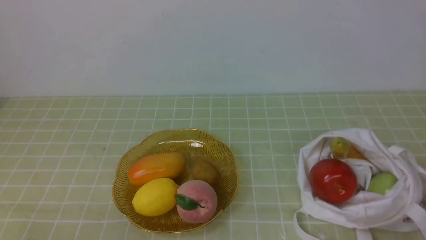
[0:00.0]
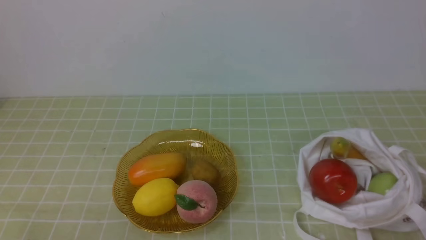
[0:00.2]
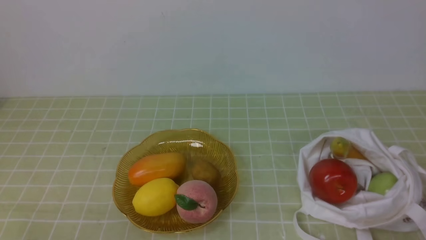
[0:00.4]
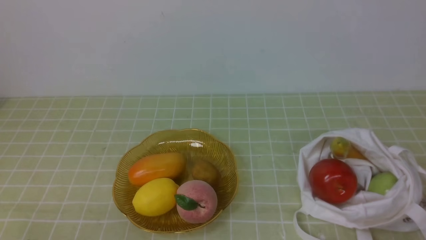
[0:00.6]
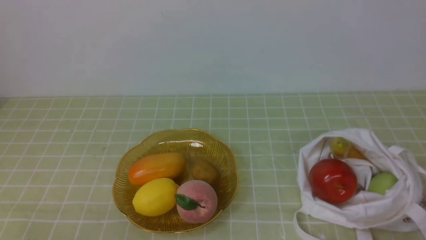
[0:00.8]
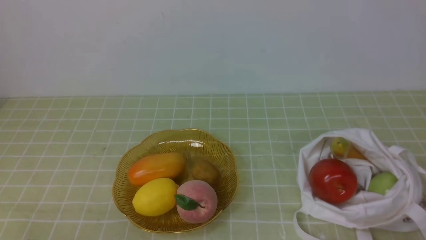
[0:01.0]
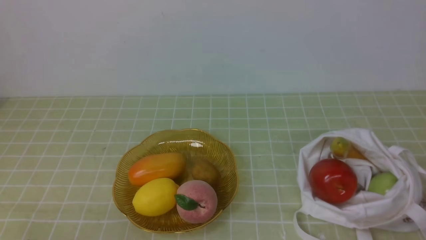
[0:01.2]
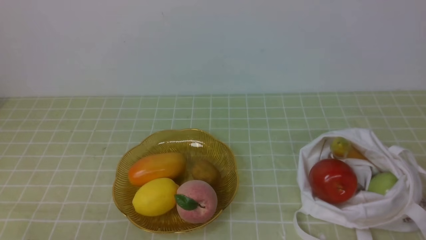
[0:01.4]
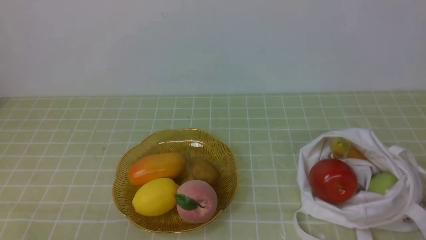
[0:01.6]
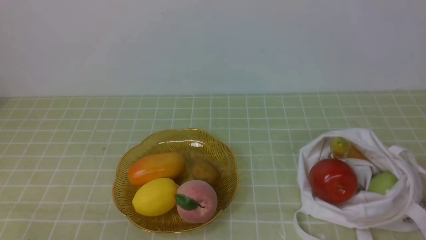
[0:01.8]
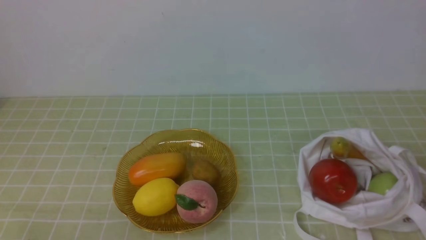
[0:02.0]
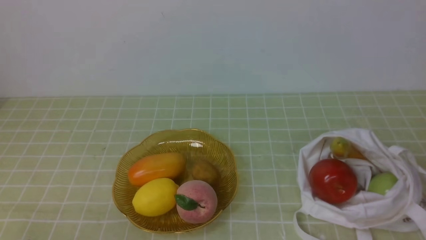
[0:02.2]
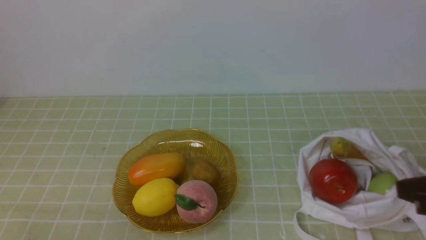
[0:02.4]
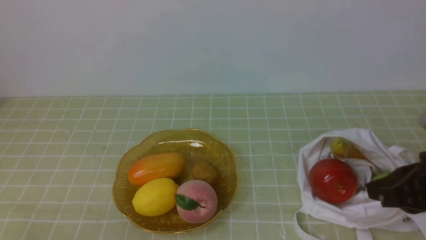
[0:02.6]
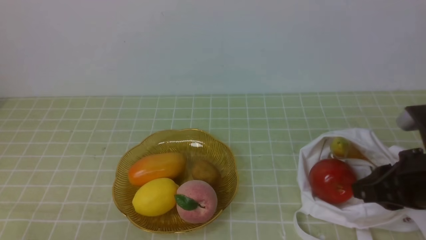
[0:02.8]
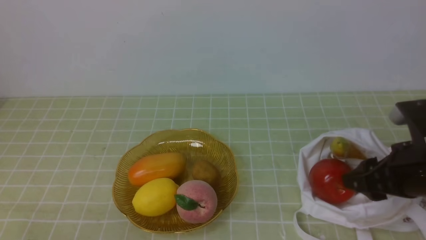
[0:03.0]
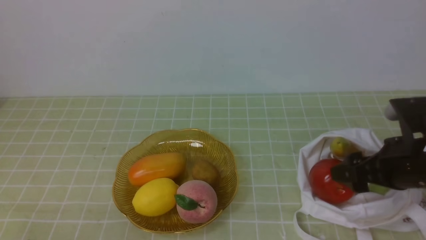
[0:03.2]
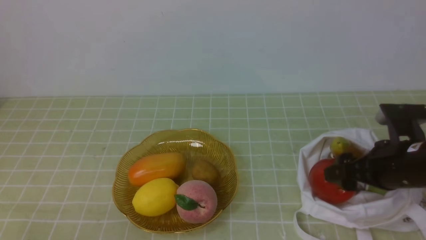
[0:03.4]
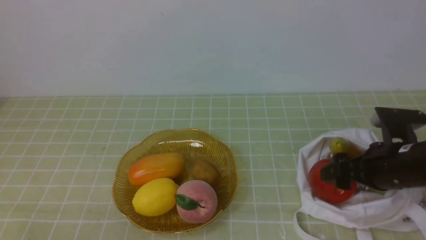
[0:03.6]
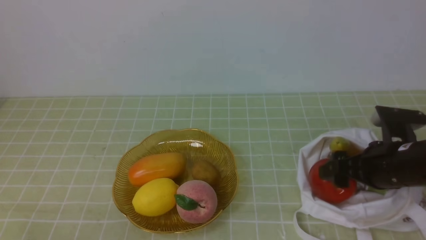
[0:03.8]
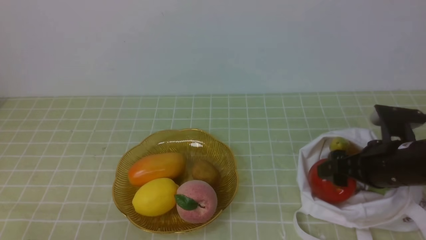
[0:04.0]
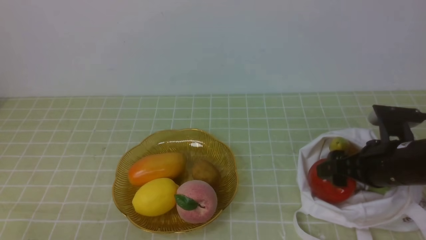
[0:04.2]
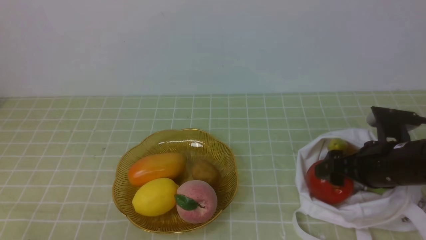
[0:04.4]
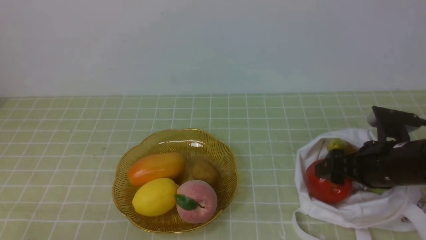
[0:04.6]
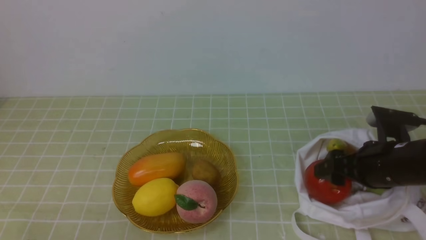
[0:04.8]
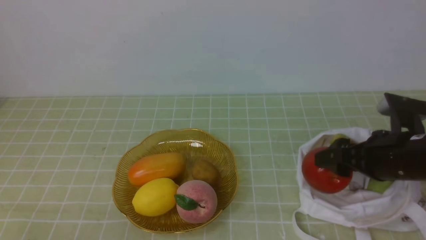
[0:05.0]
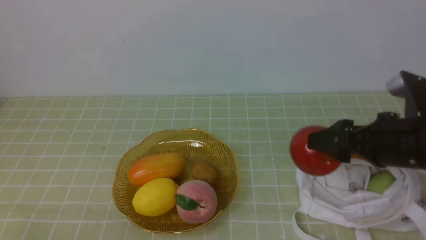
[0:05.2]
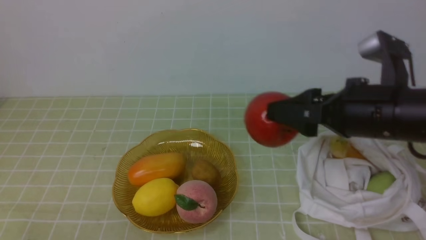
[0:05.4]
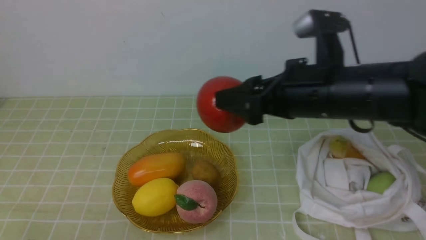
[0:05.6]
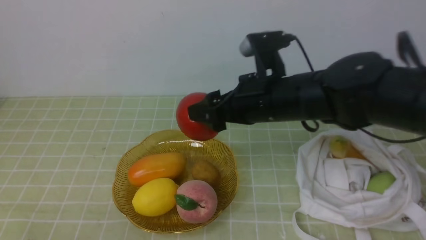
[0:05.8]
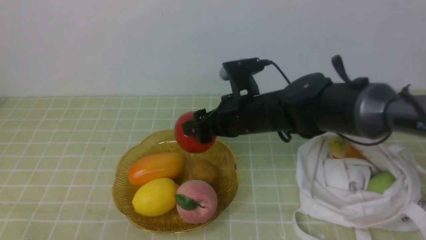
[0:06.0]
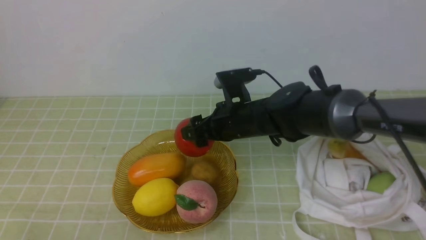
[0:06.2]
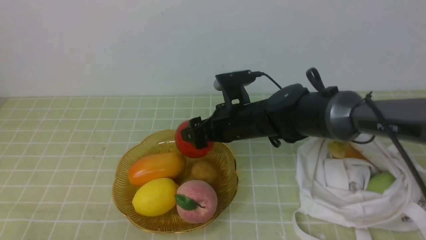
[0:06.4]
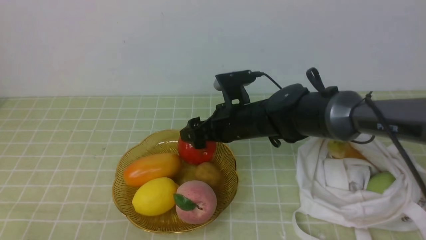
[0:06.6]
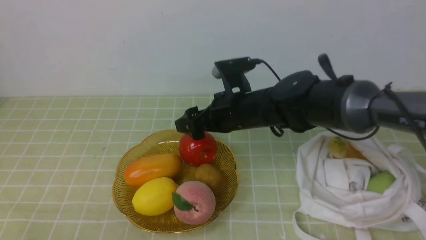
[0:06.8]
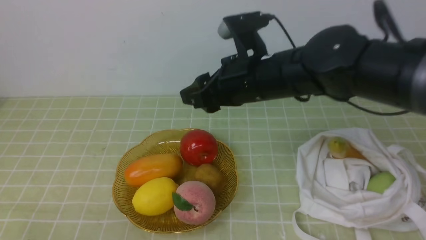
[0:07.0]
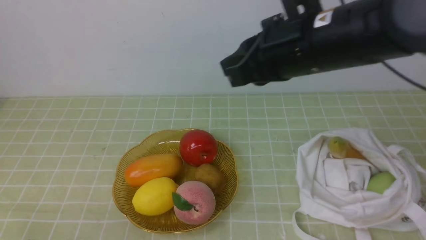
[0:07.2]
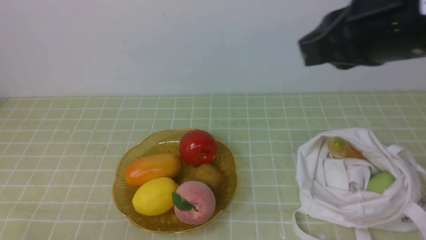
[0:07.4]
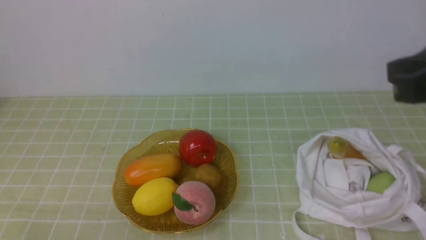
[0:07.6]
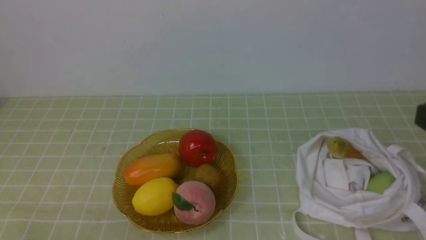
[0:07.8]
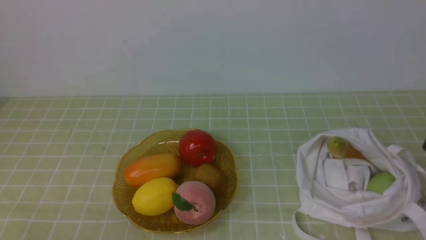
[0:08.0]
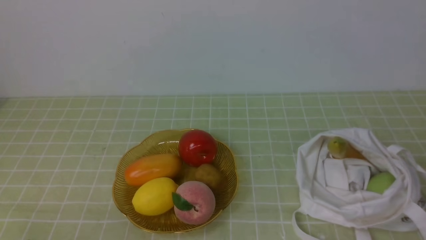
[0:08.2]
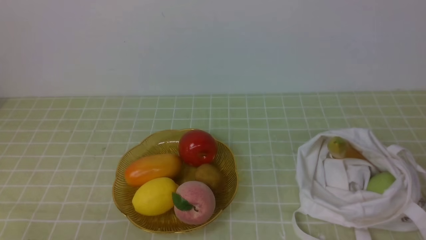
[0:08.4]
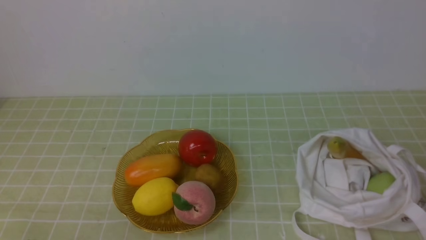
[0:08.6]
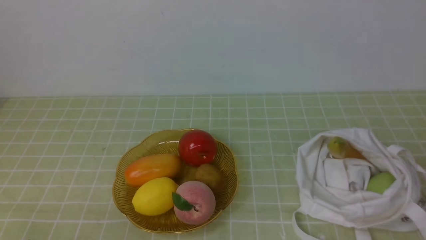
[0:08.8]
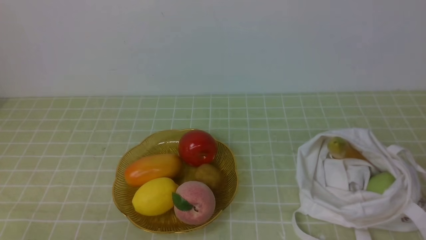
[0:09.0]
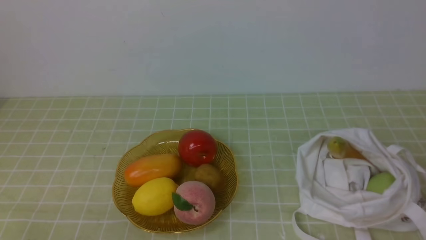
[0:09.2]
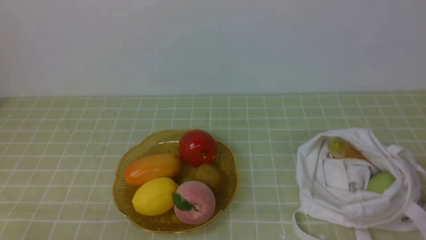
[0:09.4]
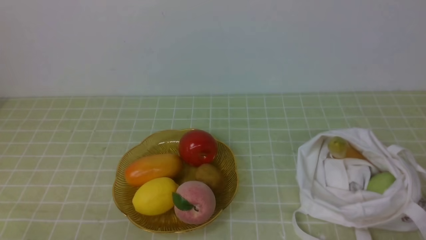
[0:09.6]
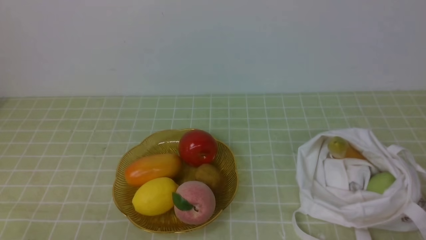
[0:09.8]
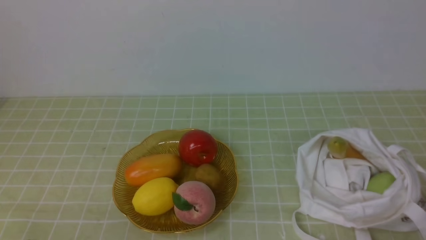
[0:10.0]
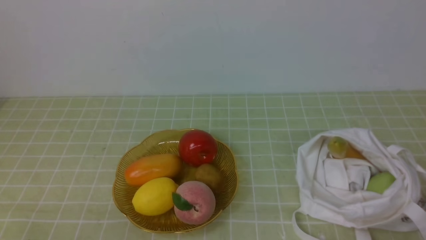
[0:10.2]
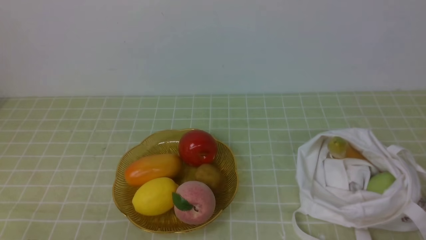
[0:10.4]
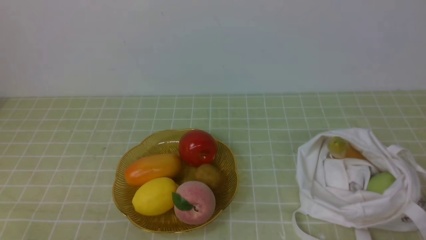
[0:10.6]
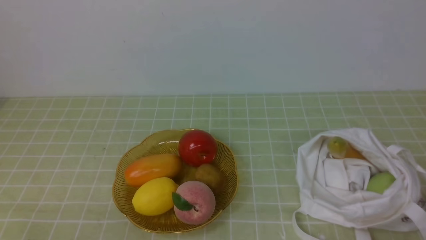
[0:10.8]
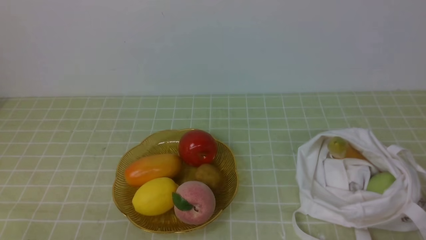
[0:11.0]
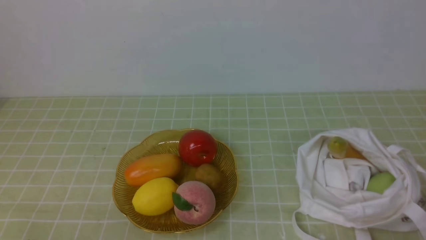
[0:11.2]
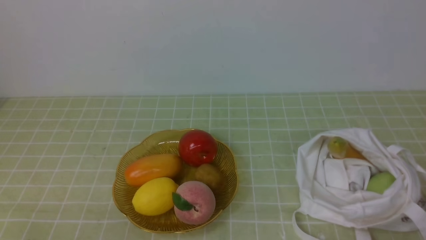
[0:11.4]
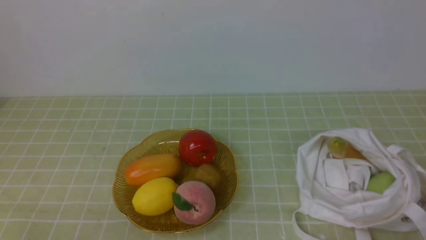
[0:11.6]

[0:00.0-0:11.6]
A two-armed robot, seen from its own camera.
Step, 0:00.0 to 0:04.8: use the right arm to grab an apple from the bag.
Step, 0:05.0 to 0:06.6: use the right arm to put the apple into the empty plate on the left.
0:01.4 to 0:02.8: The right gripper heads forward and to the left, covering about 15 cm.
0:02.8 to 0:04.4: The right gripper moves downward and forward, about 10 cm, and opens its fingers.
0:04.4 to 0:05.8: The right gripper shifts approximately 15 cm to the left.
0:05.8 to 0:07.2: The right gripper heads upward and backward, covering approximately 15 cm, and closes up.
0:07.2 to 0:08.8: The right gripper is displaced backward and to the right by some 25 cm.
0:10.2 to 0:11.6: Both grippers stay put.
